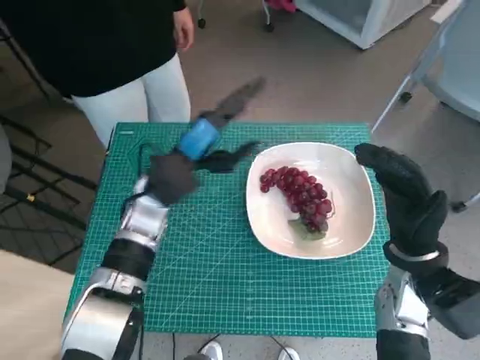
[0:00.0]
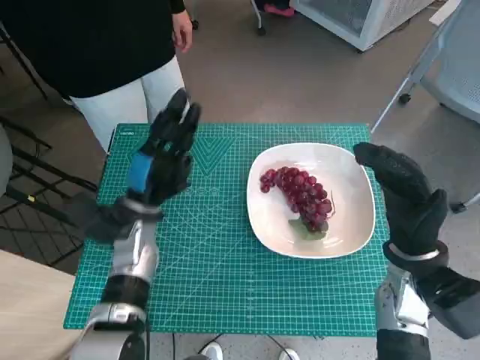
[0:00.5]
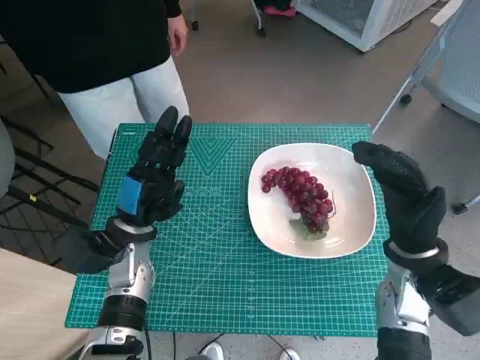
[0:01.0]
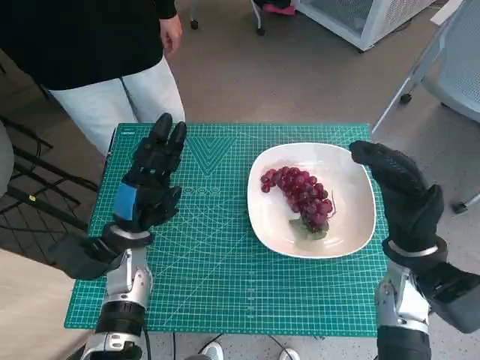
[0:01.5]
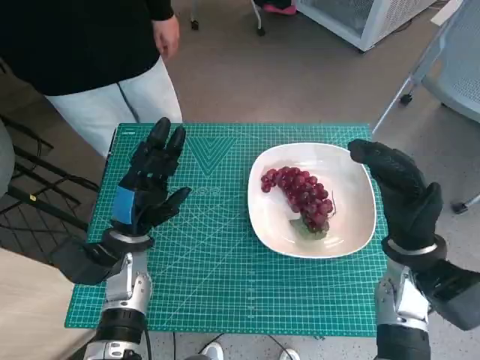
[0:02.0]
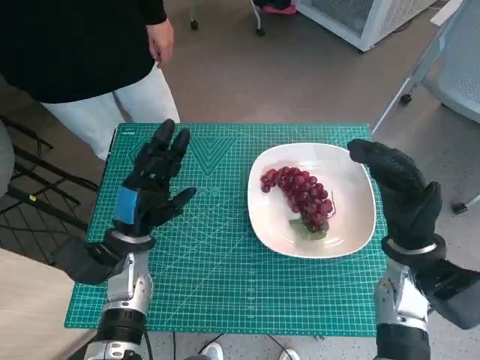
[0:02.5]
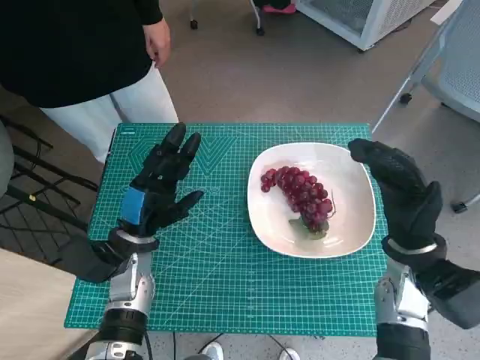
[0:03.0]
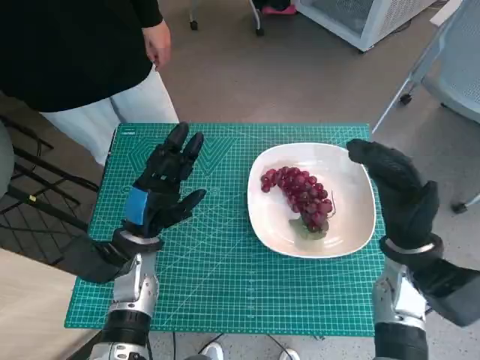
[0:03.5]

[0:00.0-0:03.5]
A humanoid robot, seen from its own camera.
Task of the whole recording: Pick up the grapes and put them on the plate.
0:00.0 to 0:02.0: The left hand moves downward, backward and to the left, approximately 15 cm.
0:02.0 to 0:03.5: The two hands keep their place.

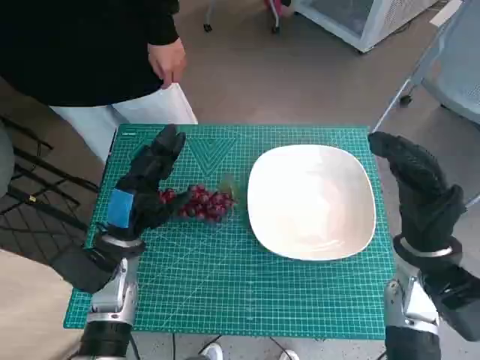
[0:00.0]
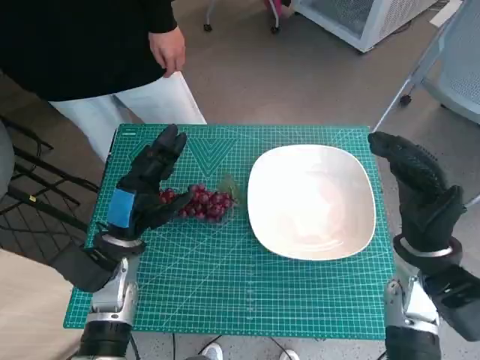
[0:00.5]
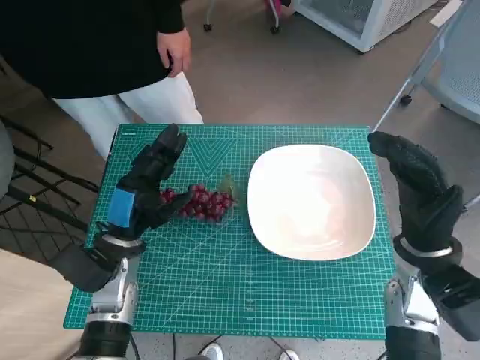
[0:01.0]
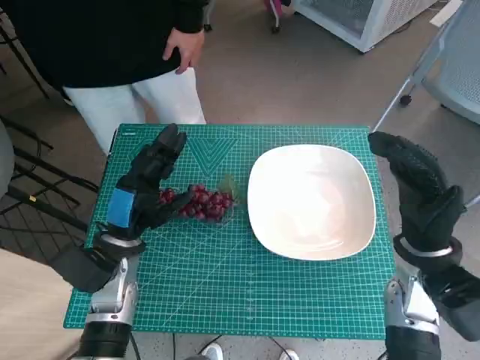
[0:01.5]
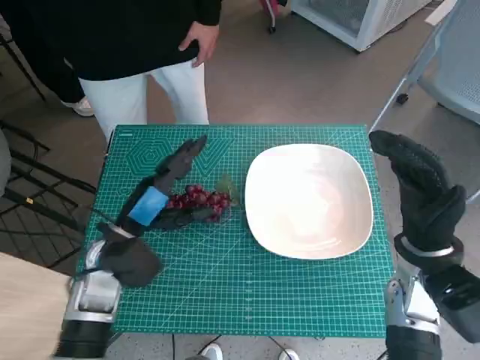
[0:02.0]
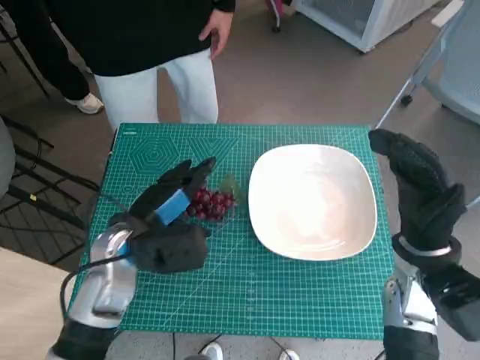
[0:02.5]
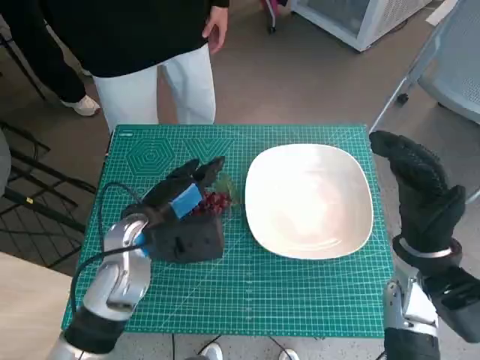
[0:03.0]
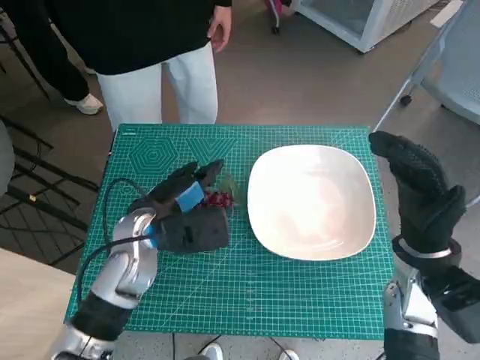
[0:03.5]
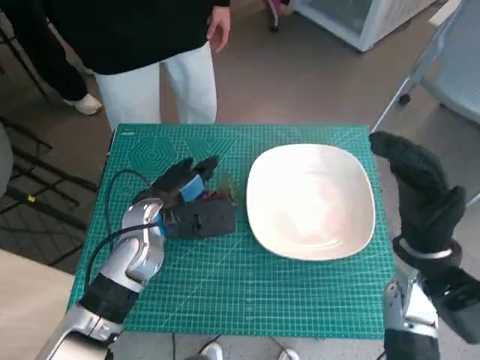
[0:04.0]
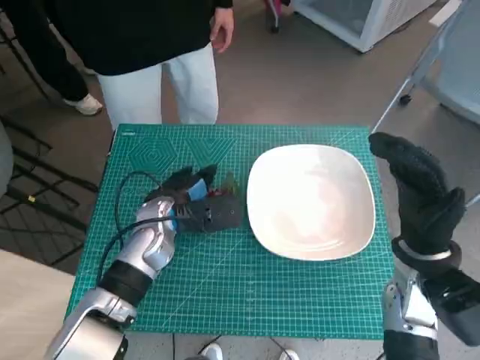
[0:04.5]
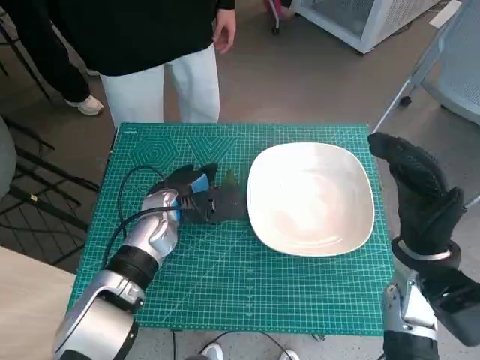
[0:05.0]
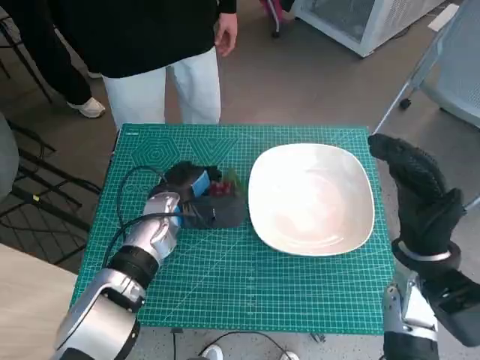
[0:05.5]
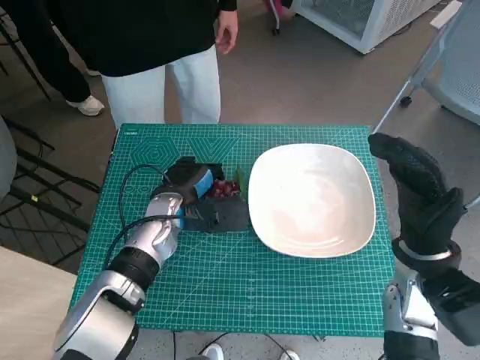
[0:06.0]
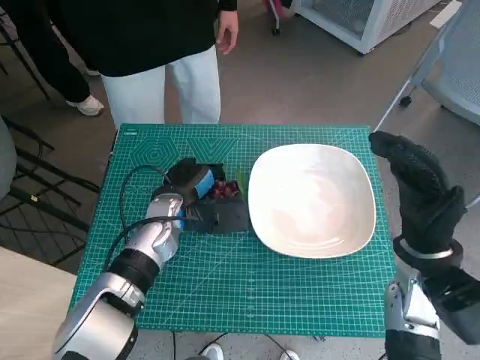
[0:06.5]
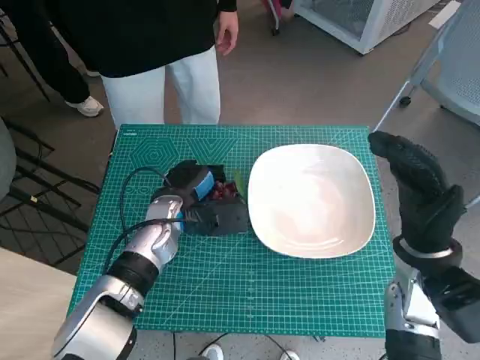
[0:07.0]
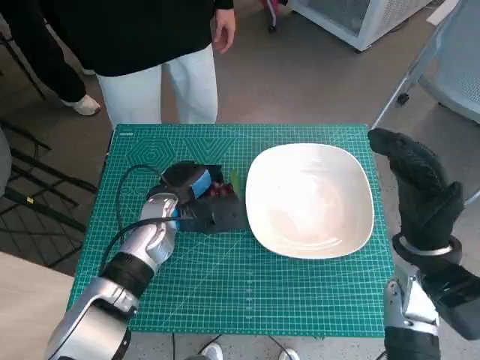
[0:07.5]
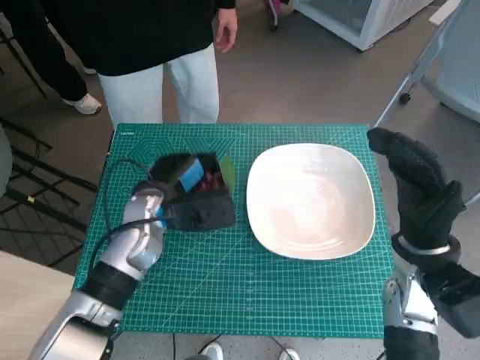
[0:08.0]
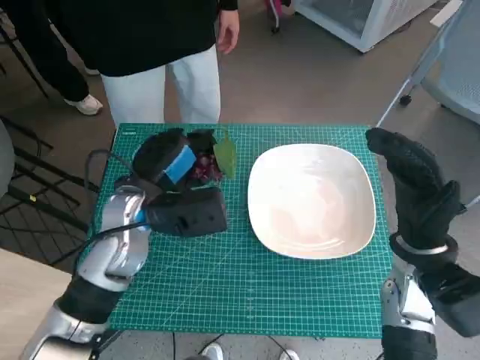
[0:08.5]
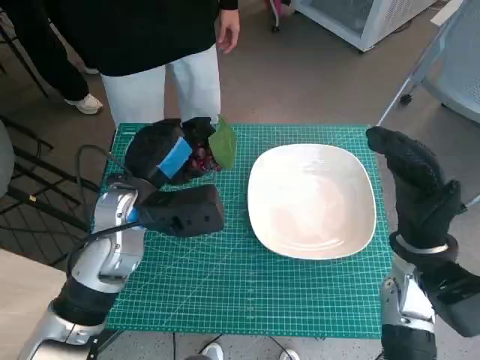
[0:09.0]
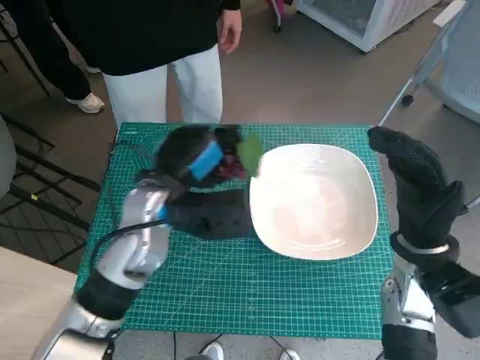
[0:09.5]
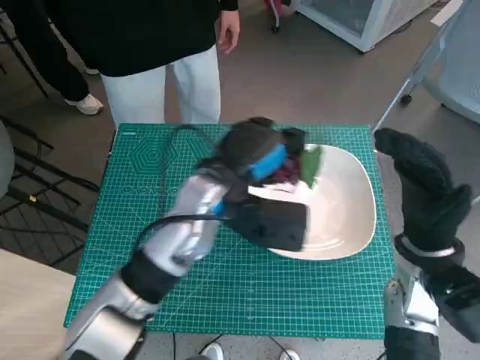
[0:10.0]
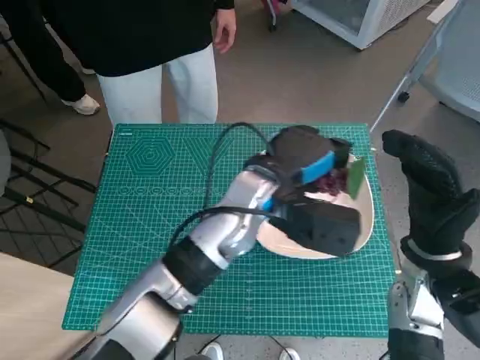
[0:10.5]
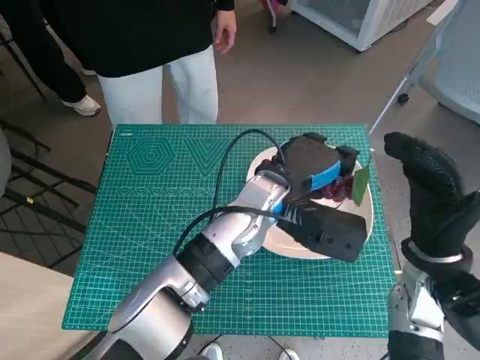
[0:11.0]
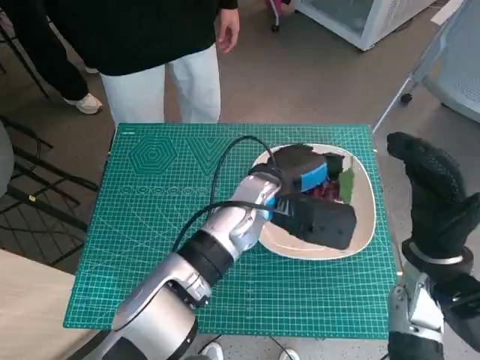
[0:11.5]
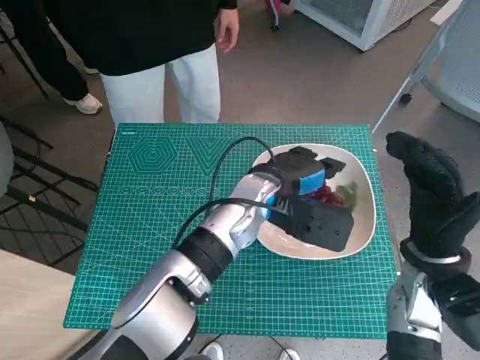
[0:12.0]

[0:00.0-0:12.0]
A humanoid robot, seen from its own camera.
Task of the whole recording: Pick up the grapes and put them on the plate.
Step, 0:00.0 to 0:06.0: Grasp the grapes with left hand.
0:02.0 to 0:04.0: The left hand shifts by about 5 cm.
0:04.0 to 0:06.0: The left hand ends up roughly 5 cm from where it was.
0:06.0 to 0:08.0: The hands move only a little.
0:08.0 to 0:10.0: The left hand shifts roughly 10 cm to the right and upward.
0:10.0 to 0:12.0: The left hand moves to the right, about 5 cm.

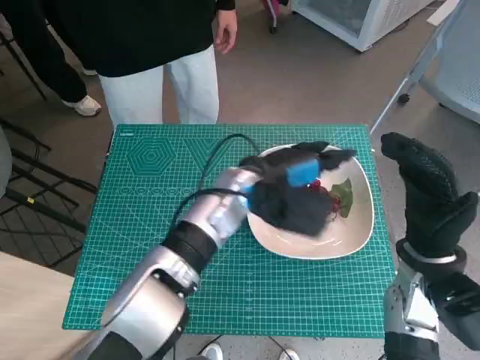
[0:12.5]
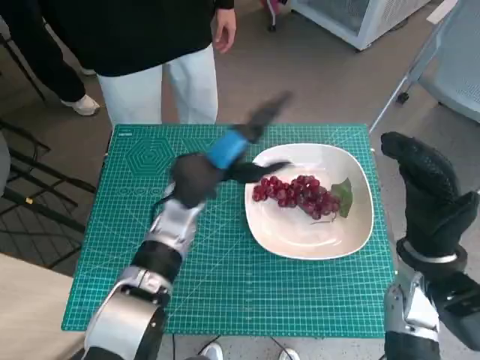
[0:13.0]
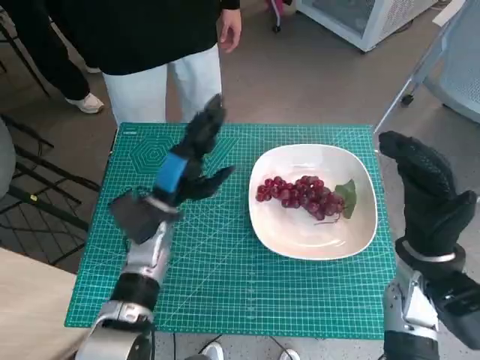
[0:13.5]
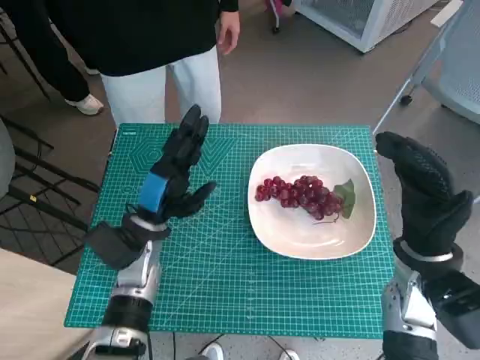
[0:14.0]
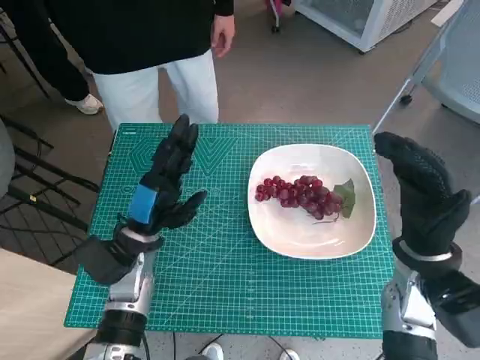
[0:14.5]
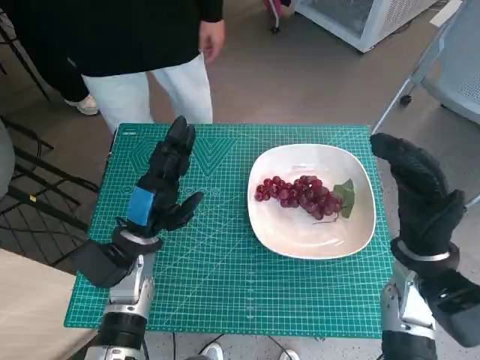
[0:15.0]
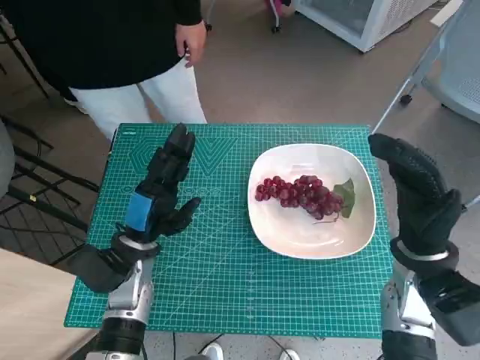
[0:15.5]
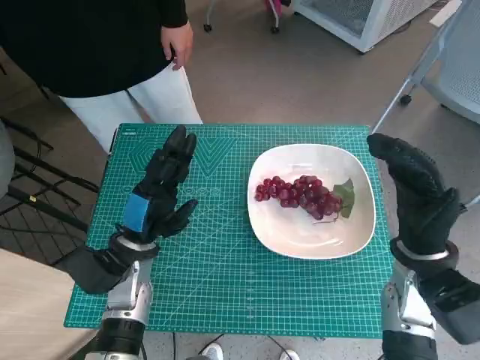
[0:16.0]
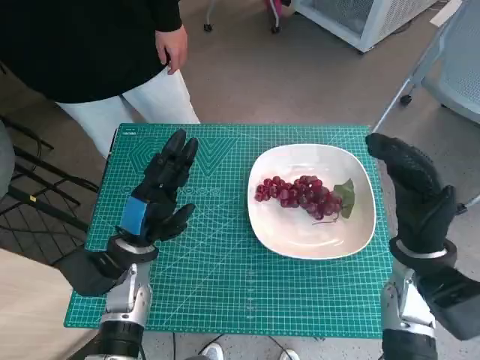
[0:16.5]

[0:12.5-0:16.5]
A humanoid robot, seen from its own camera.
Task of the whole recording: Pick up the grapes and put them on the plate.
0:12.5 to 0:14.5: The left hand moves to the left, downward and backward, some 20 cm.
0:14.5 to 0:16.5: The hands make only small movements.
